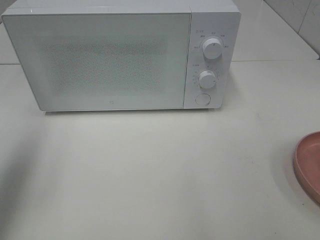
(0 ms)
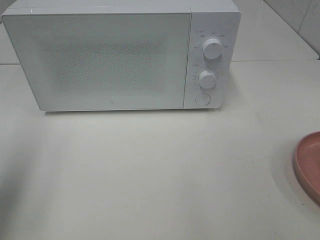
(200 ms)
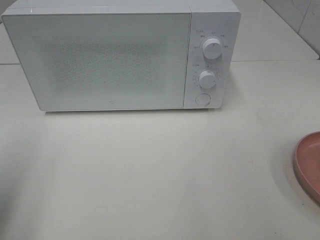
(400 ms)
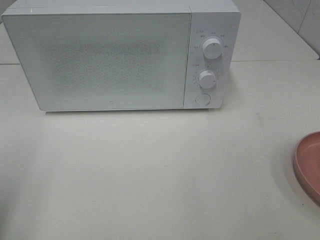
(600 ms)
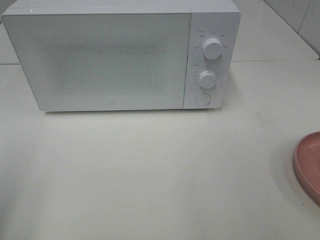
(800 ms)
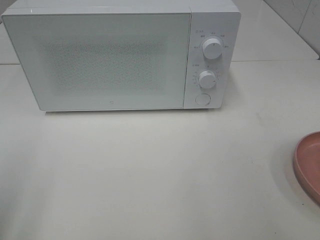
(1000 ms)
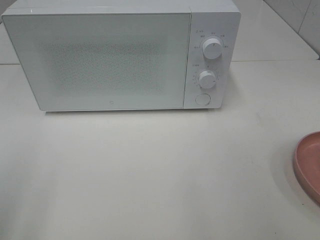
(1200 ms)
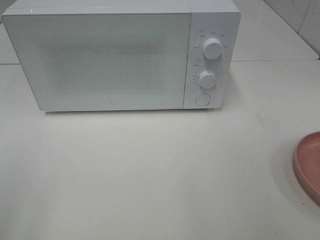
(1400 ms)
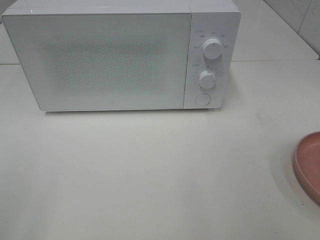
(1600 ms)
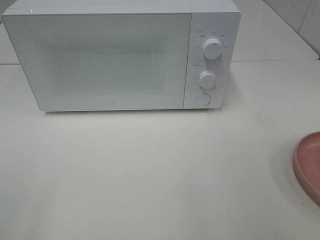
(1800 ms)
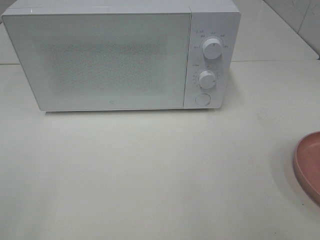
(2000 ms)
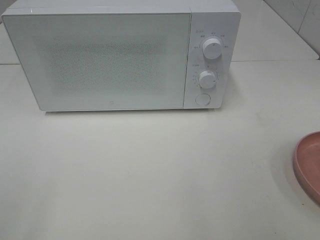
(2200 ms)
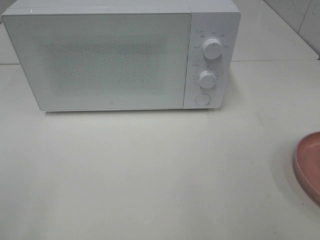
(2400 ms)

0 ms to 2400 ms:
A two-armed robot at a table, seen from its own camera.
Task of the whole recording: Heat the burger.
0 ms to 1200 ms: The left gripper shifts some 15 cm backward.

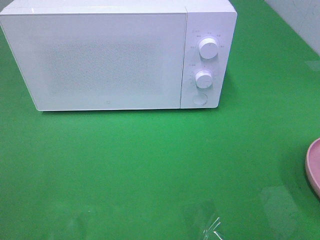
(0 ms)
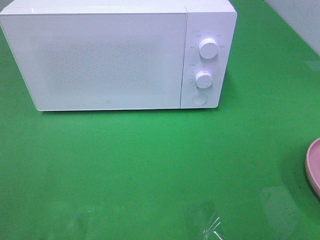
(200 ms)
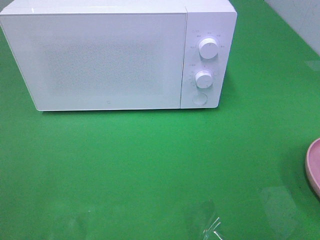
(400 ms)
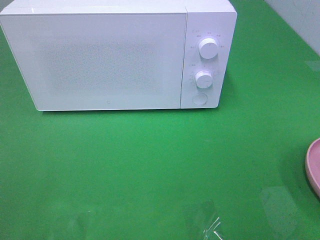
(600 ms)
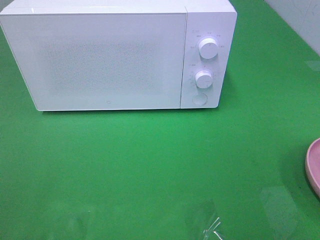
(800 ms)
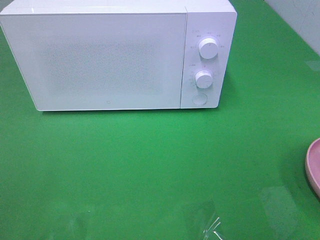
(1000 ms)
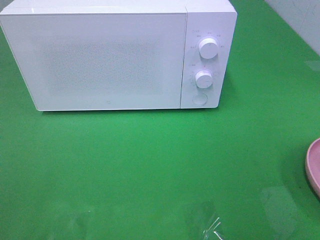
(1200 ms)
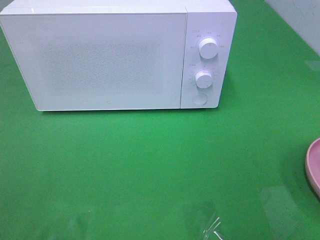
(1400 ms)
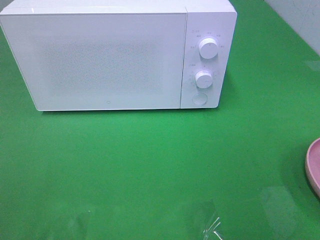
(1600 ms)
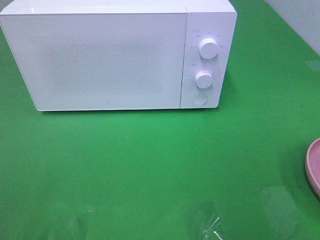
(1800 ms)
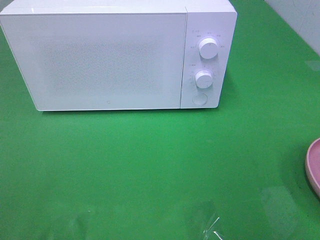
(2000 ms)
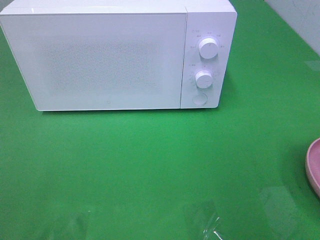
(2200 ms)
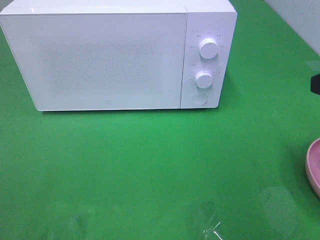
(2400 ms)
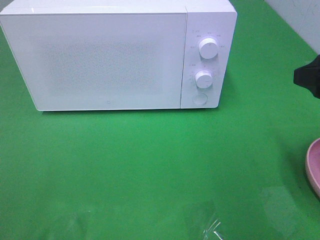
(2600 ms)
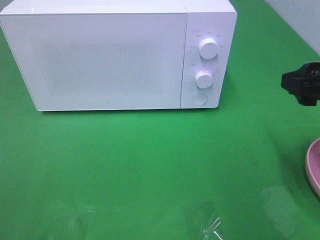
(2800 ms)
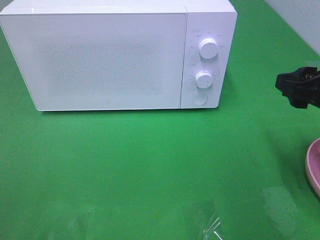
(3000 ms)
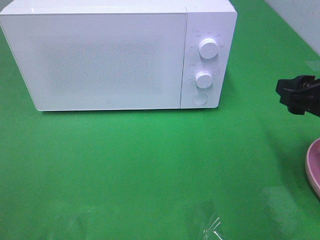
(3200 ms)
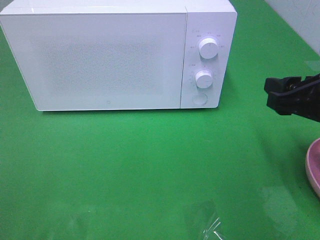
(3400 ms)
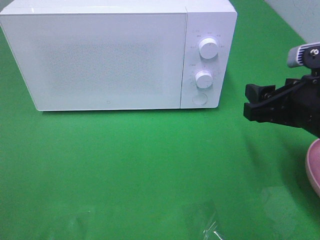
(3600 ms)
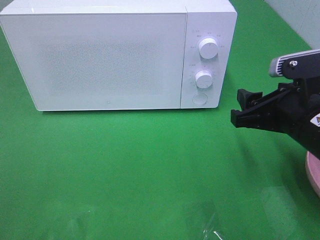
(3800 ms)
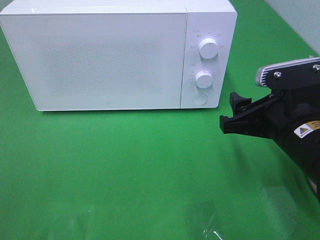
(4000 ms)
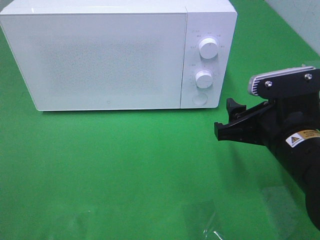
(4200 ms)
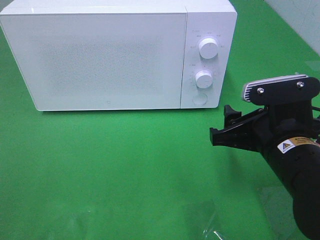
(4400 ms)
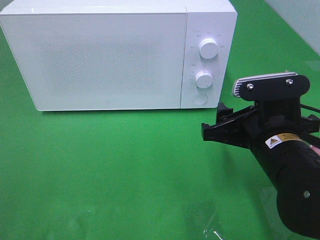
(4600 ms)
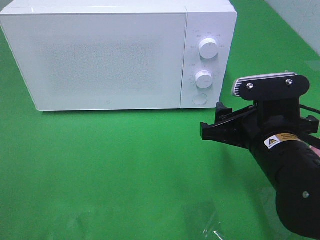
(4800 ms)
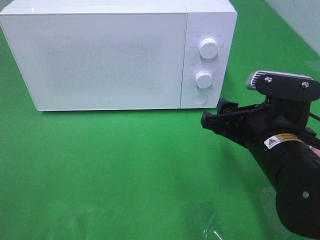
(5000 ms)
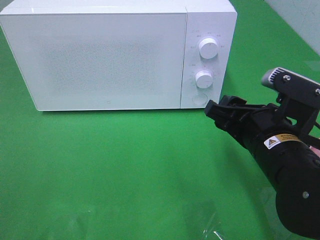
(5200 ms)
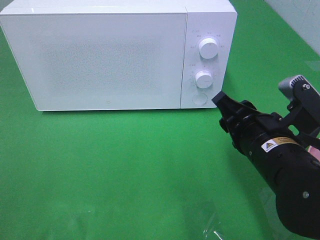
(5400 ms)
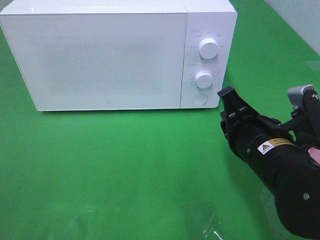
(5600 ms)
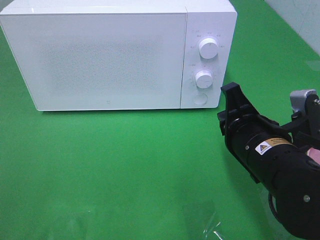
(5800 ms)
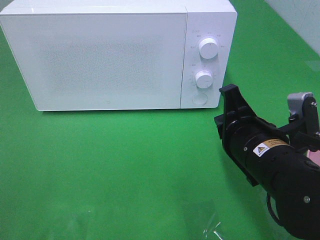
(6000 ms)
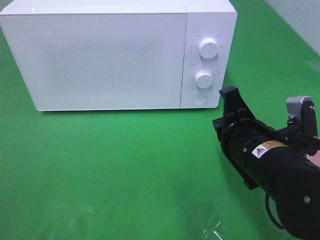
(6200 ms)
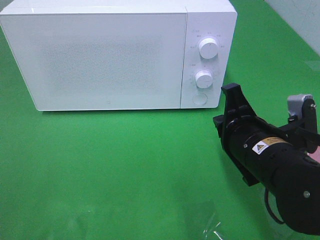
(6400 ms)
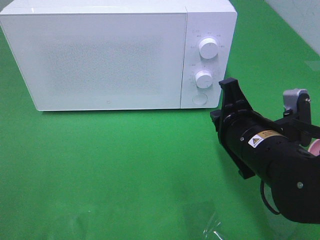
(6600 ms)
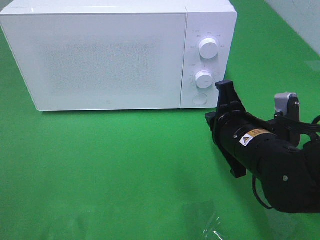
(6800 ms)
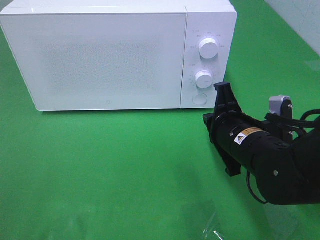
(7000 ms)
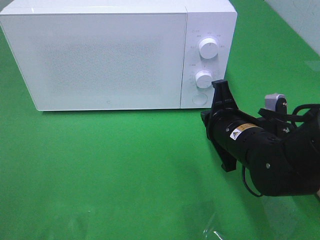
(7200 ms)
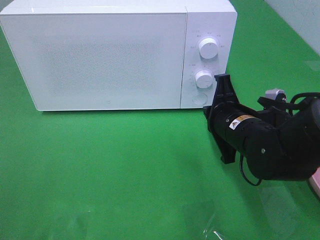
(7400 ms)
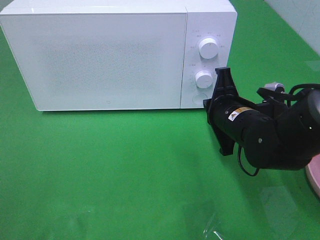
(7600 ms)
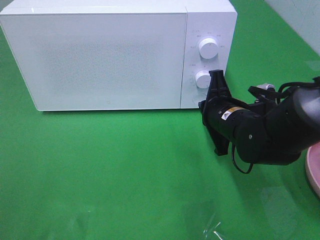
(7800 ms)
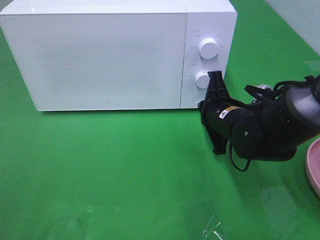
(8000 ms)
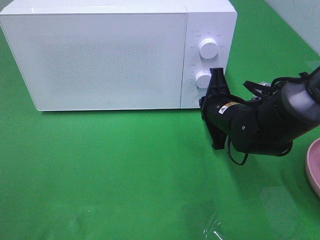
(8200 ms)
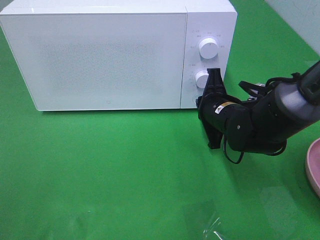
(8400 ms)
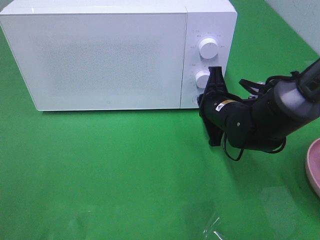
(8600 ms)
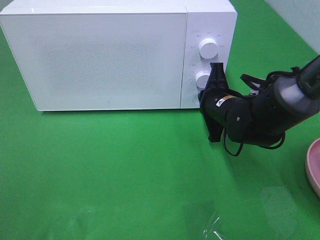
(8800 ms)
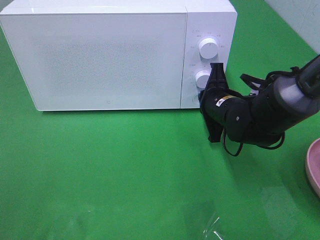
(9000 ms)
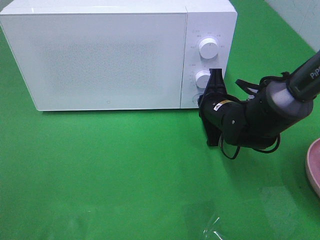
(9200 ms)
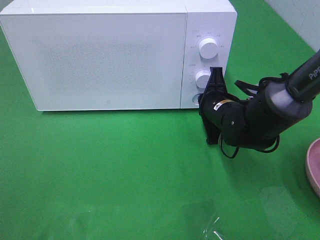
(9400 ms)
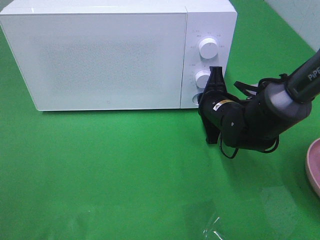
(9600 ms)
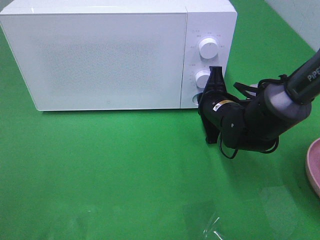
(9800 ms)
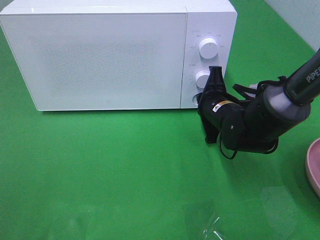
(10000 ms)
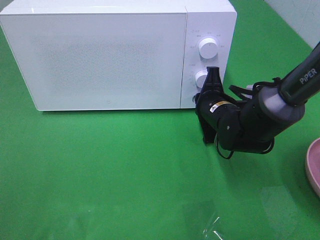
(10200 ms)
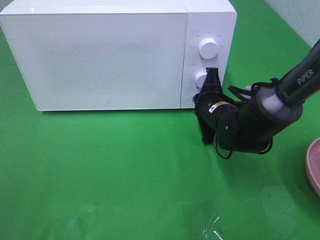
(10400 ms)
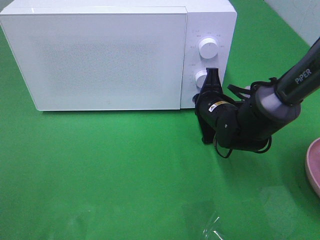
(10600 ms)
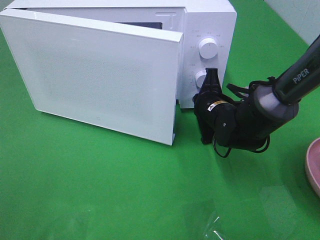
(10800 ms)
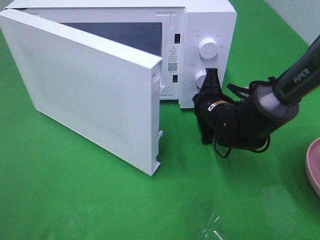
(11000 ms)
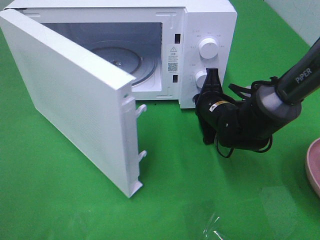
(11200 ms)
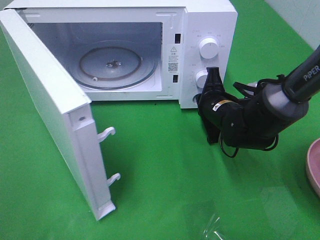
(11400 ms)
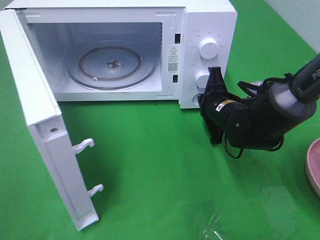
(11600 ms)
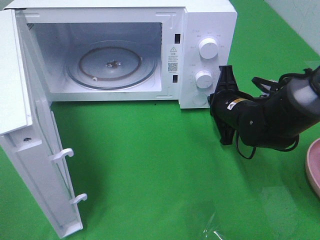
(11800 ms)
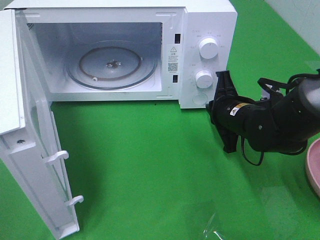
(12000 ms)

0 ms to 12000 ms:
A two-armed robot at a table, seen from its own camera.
Task of the whole recording: Heat the burger.
1600 ms to 3000 ms: The right gripper goes roughly 15 cm forward and downward.
3000 ms to 4400 ms: The right gripper goes about 10 cm to the left and downward.
4400 ms to 6000 ms: The right gripper closes its fingers.
6000 ms to 7600 ms: The right gripper shifts some 10 cm forward.
7600 ms to 9000 ms: The right gripper is displaced forward by some 5 cm.
9000 ms to 10400 ms: The grippers make only small movements.

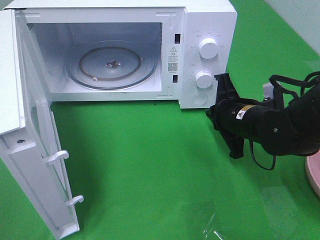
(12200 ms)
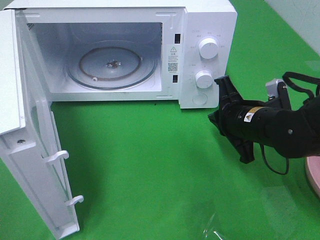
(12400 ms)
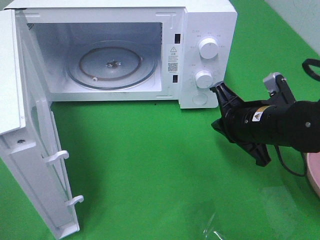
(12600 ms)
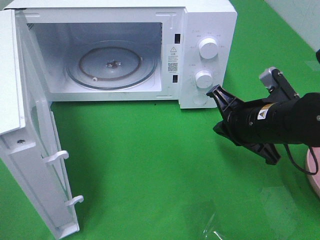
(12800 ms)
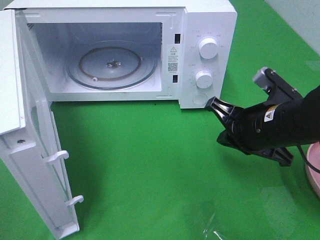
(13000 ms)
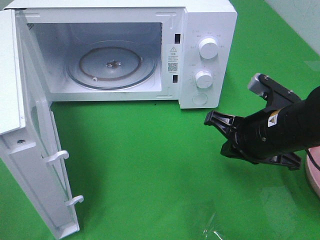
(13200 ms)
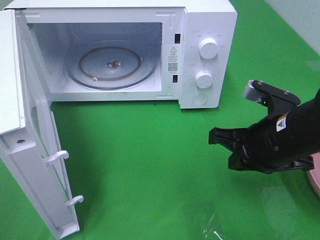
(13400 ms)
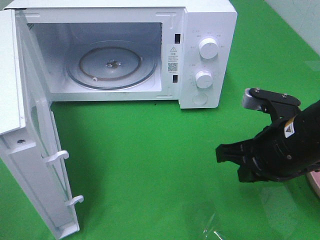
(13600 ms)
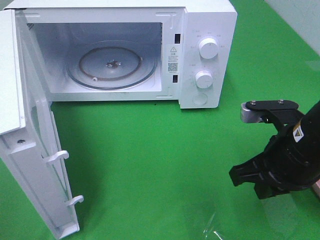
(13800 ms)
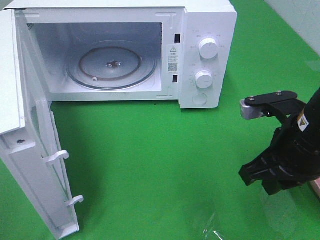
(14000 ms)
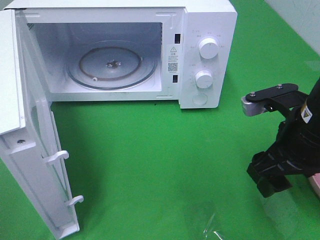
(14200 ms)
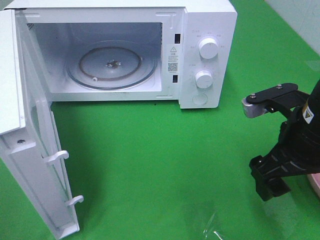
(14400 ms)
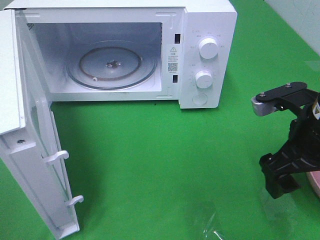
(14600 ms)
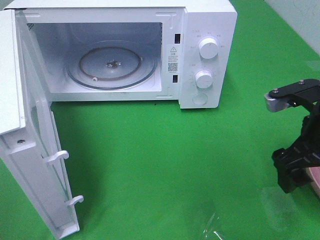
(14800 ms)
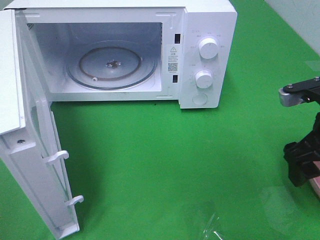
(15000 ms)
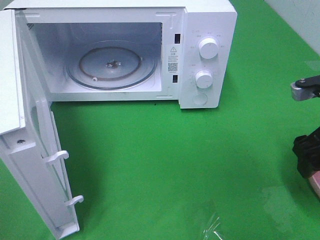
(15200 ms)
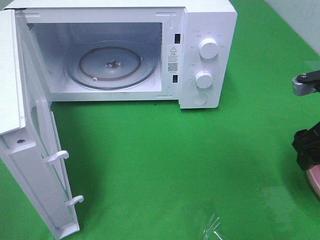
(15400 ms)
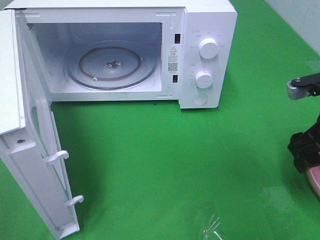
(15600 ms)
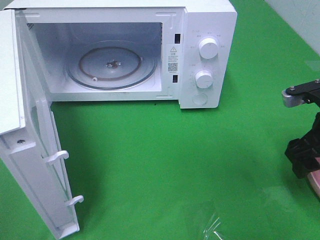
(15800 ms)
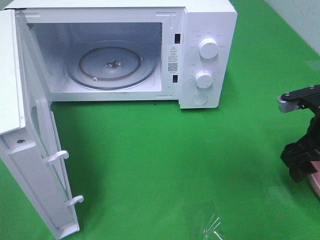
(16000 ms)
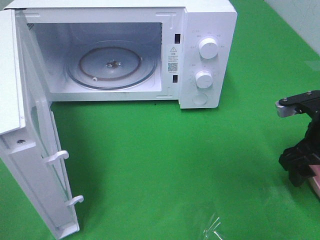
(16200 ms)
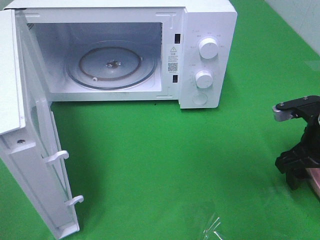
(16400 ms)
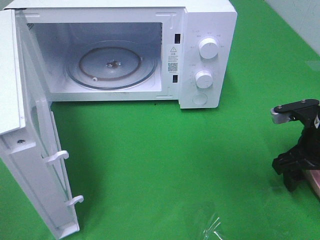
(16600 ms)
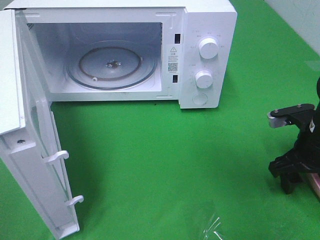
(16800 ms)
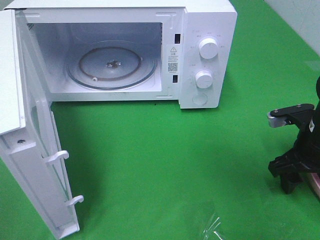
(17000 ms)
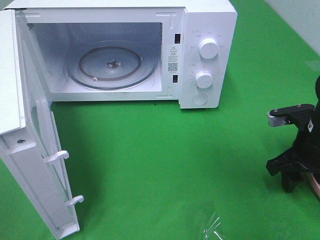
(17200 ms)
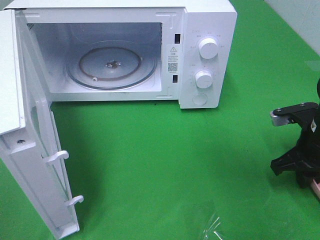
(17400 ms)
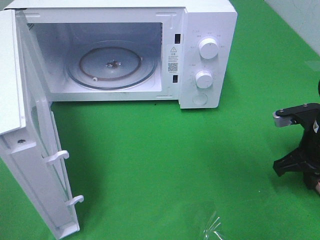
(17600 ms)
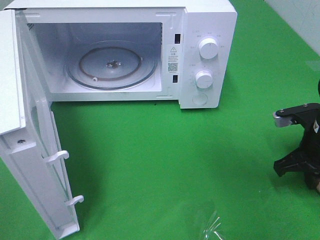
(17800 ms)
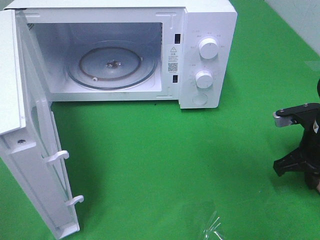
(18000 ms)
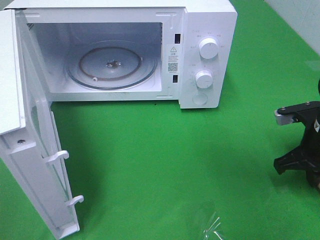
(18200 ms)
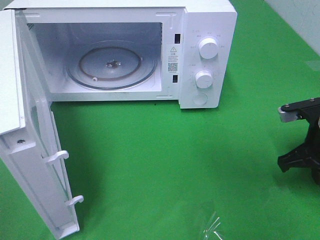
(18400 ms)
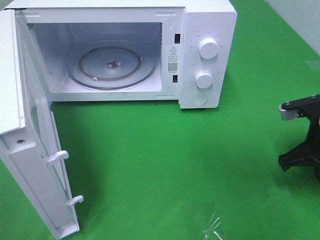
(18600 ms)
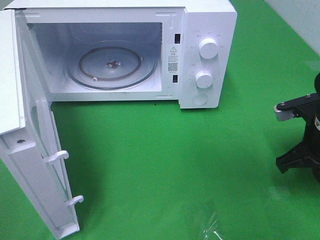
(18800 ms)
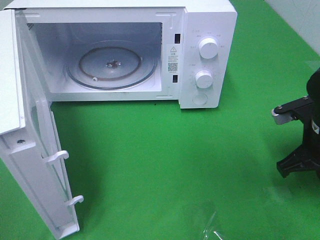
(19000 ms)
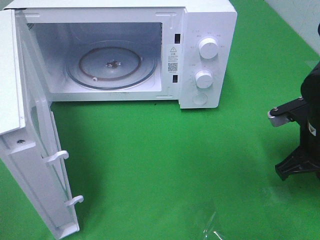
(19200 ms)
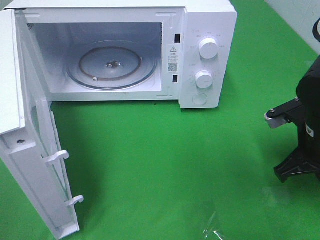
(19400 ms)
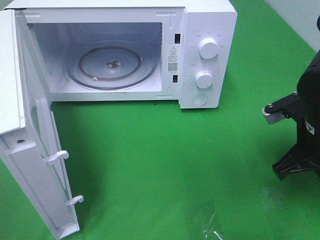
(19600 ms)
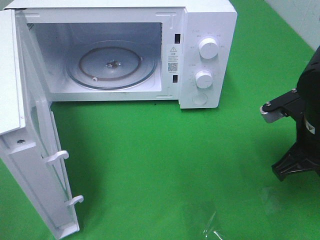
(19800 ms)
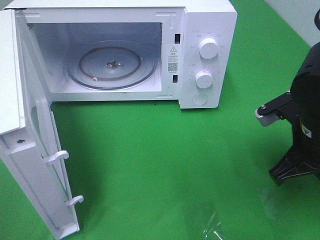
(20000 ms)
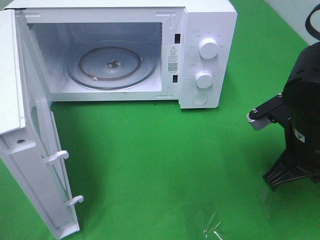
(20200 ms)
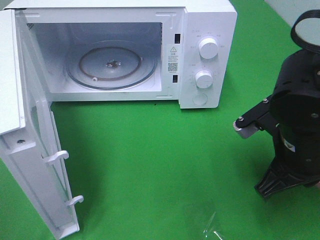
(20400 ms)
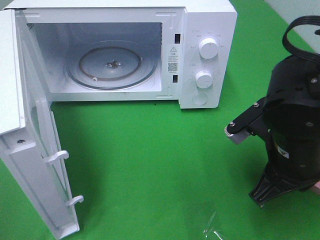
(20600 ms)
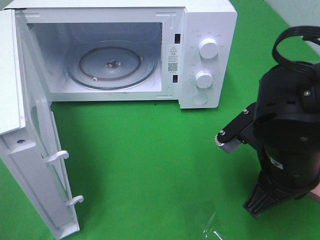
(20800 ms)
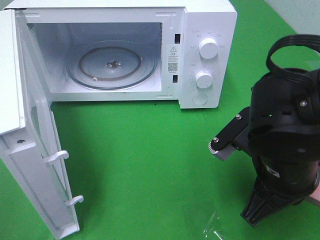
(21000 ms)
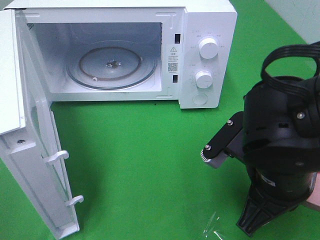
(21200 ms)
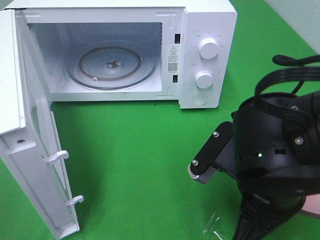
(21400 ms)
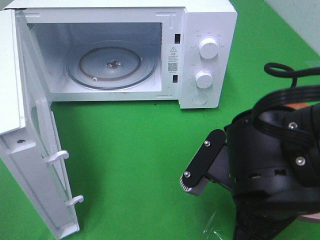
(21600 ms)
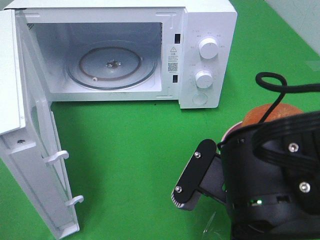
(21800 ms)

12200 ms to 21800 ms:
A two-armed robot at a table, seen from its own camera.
Task of the whole recording: Heat the burger.
Step, 12600 ms to 18200 ms: Right hand: grab the plate with the hamburger.
12200 ms to 13800 ms: The right gripper goes roughly 10 cm backward and upward.
13800 ms to 15400 ms: The right gripper goes about 10 cm to the right, and opens up.
15400 ms to 17000 ms: The right gripper goes roughly 10 cm downward.
17000 ms to 18600 ms: The right gripper closes up.
18600 ms to 20200 ms: The right gripper heads to the left, covering approximately 5 cm.
20200 ms to 21800 ms: The right gripper goes roughly 15 cm to the left and backward.
